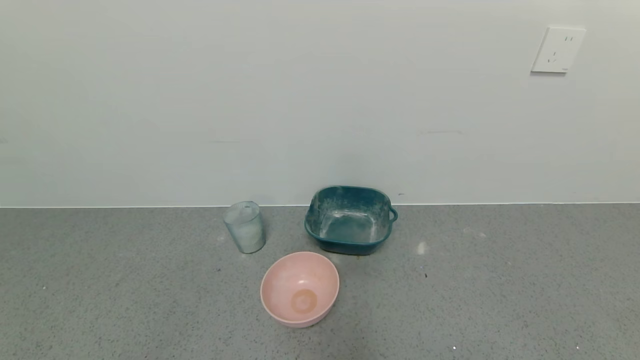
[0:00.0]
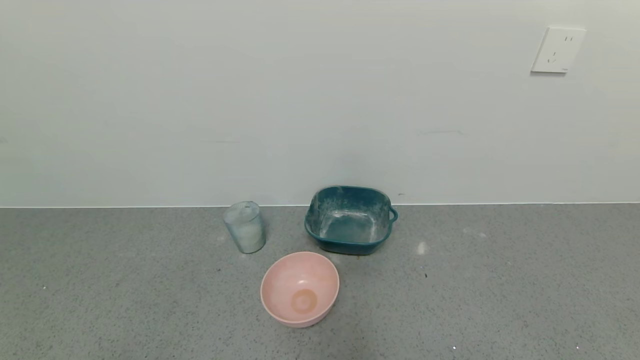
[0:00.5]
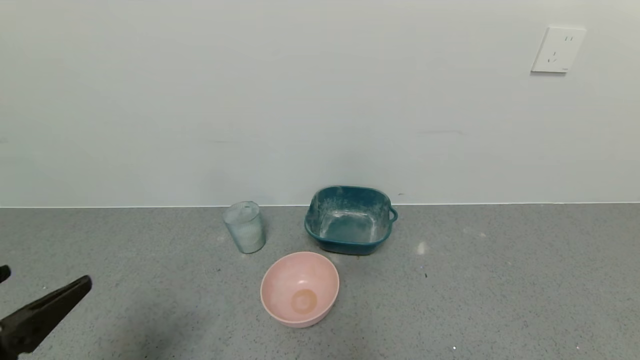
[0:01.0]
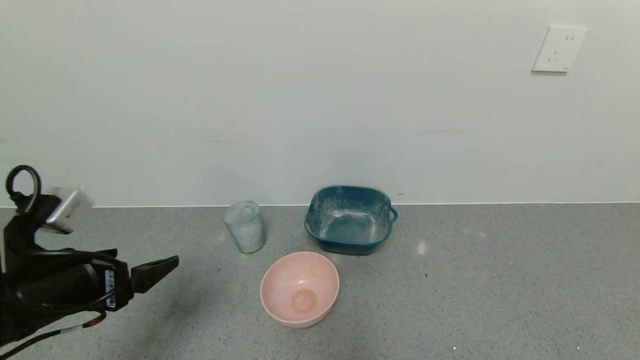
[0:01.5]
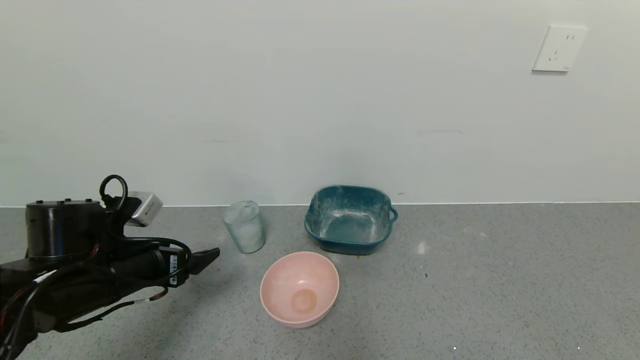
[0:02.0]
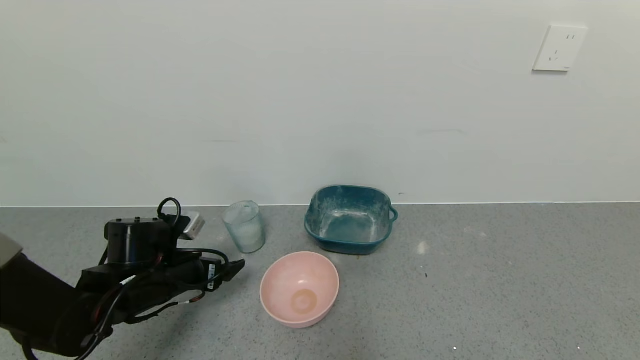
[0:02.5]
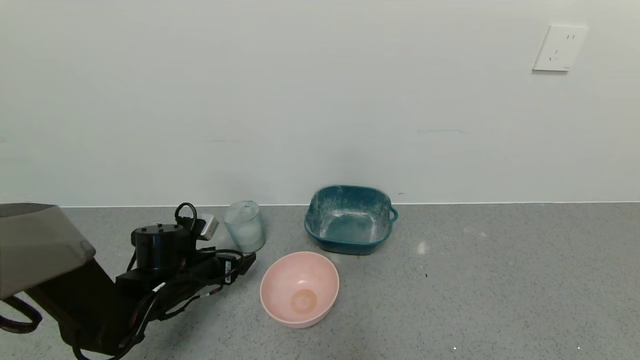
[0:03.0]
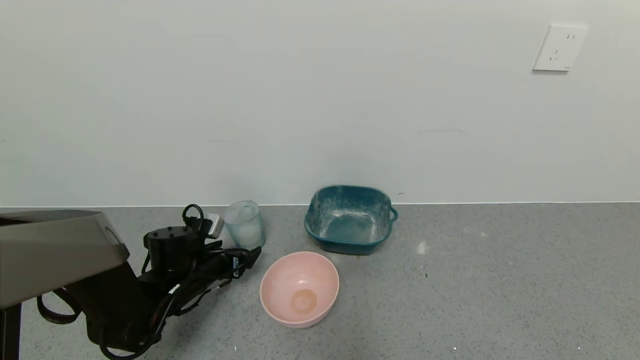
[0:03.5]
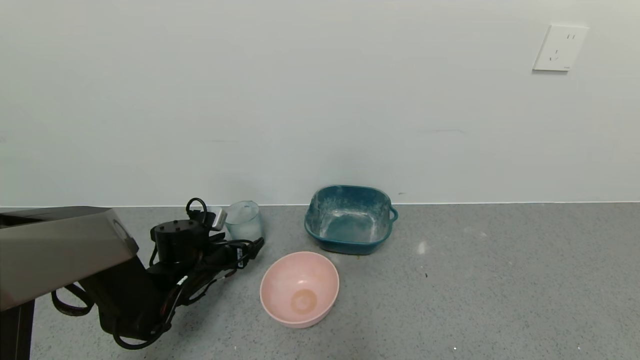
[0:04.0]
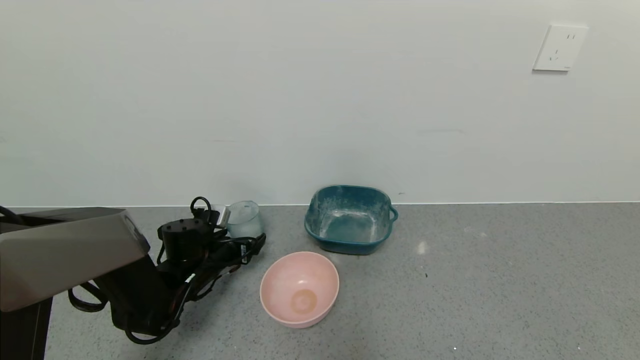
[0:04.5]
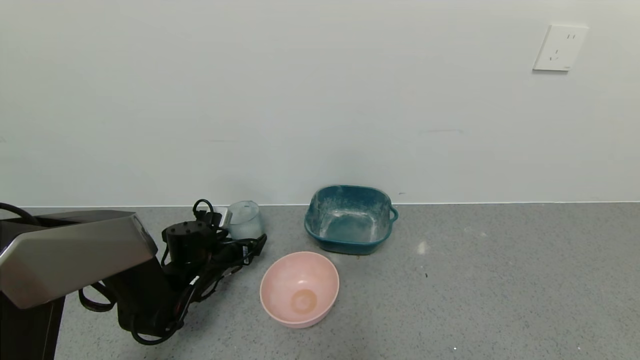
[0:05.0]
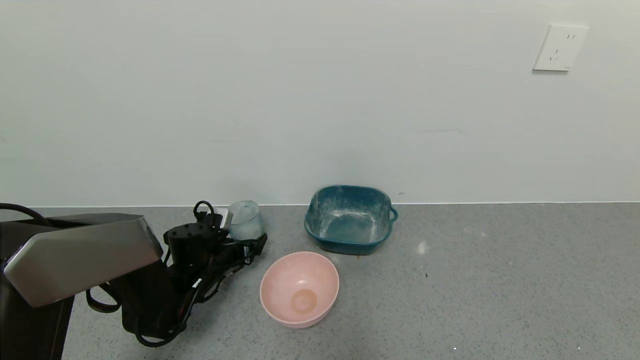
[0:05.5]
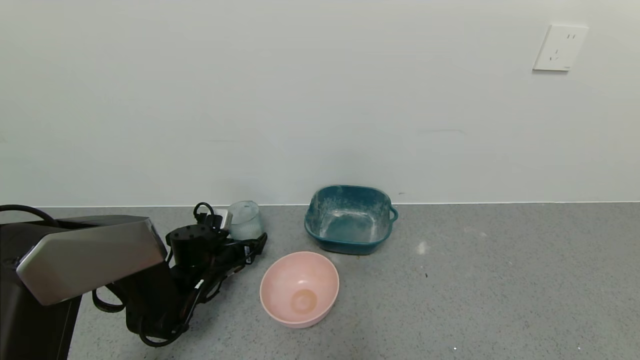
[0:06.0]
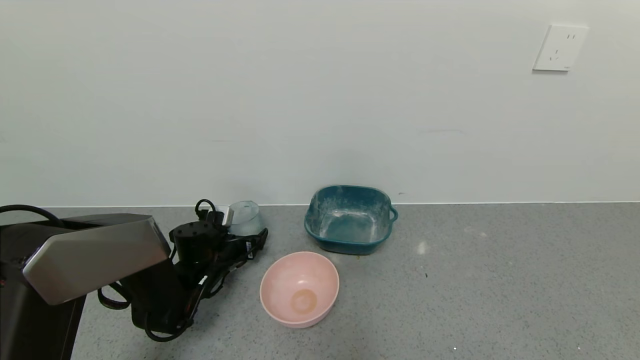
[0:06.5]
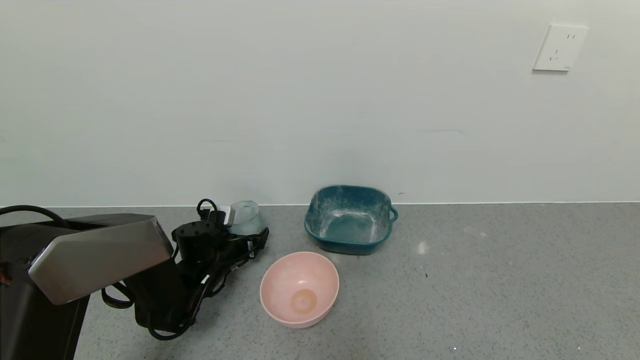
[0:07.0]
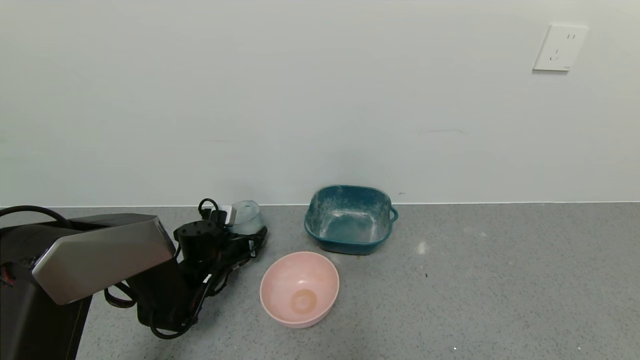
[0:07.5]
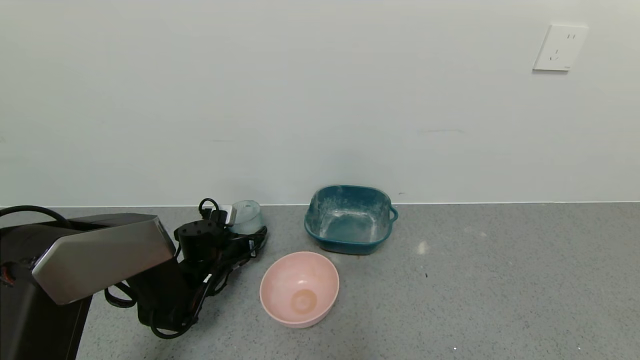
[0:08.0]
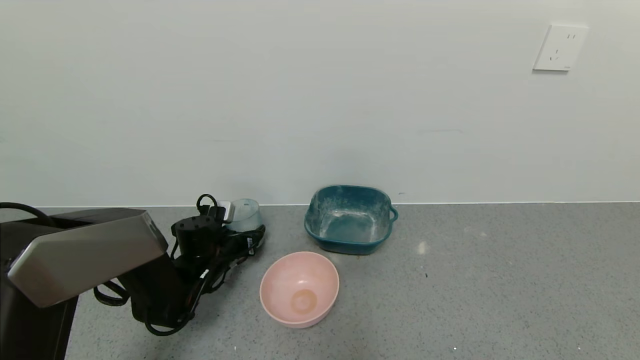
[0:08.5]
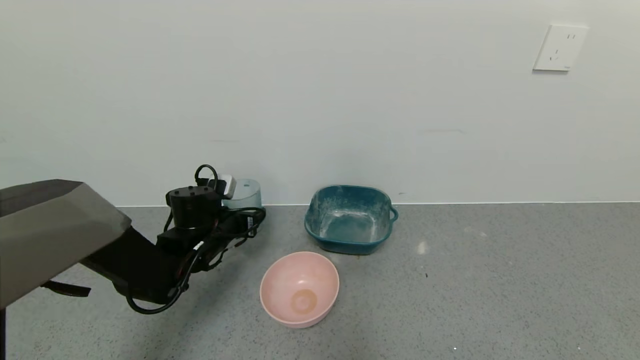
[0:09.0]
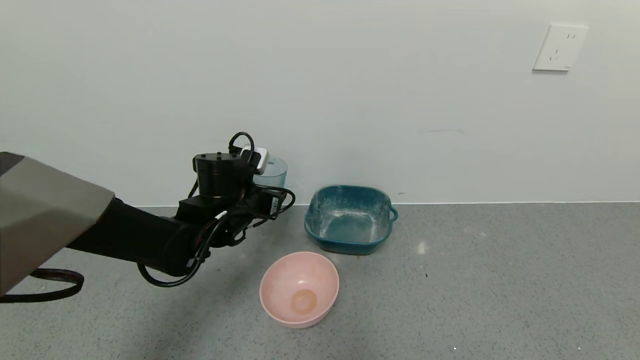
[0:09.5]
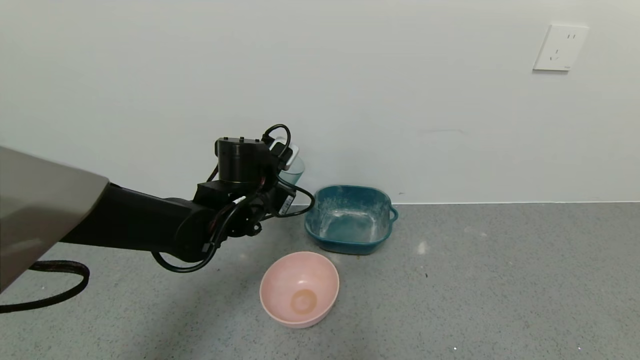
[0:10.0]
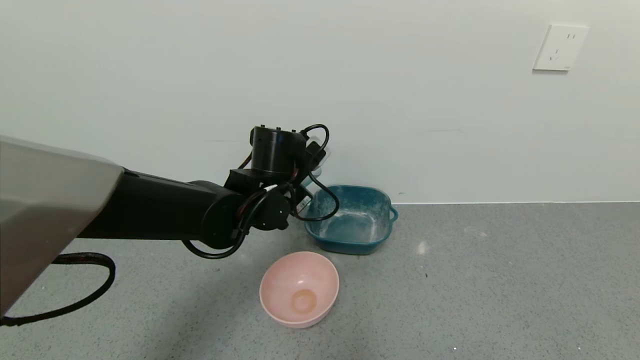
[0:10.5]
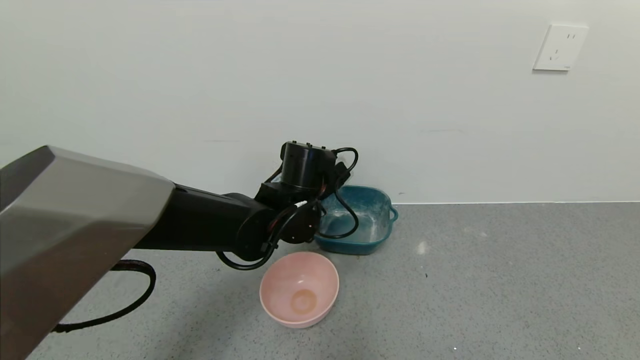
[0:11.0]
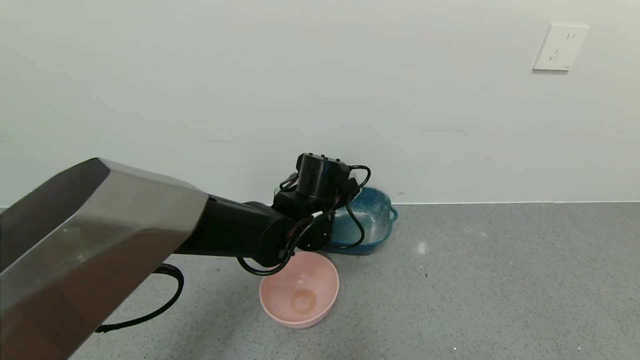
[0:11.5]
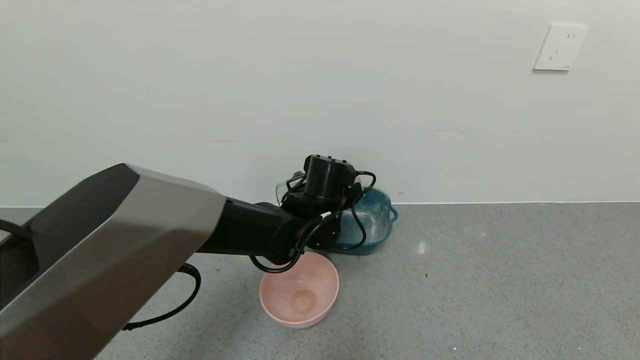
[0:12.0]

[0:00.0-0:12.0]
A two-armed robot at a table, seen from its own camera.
Task of the whole recording: use a gripper to pick up the cup and pour the powder into a bowl or tray.
Step, 0:00.0 to 0:07.5: Grasp the glass of powder with the left gripper.
0:00.0 to 0:02.0: The left gripper shifts roughly 25 cm forward.
0:02.0 to 0:04.0: The left gripper shifts about 15 cm forward and downward.
0:04.0 to 0:06.0: The grippers stay close to where they were, moving slightly.
0:06.0 to 0:08.0: The left gripper closes up.
0:08.0 to 0:10.0: The left gripper heads upward and to the right, covering approximately 20 cm.
0:10.0 to 0:12.0: The left gripper travels to the right by some 10 cm.

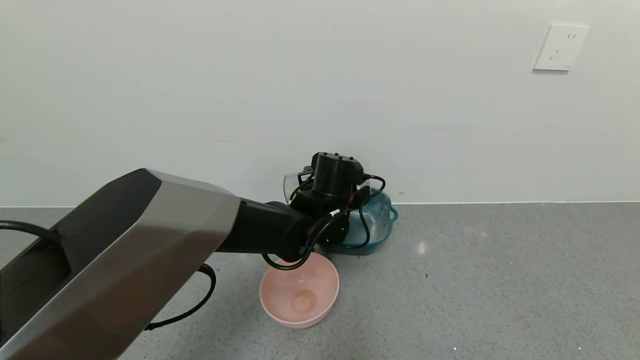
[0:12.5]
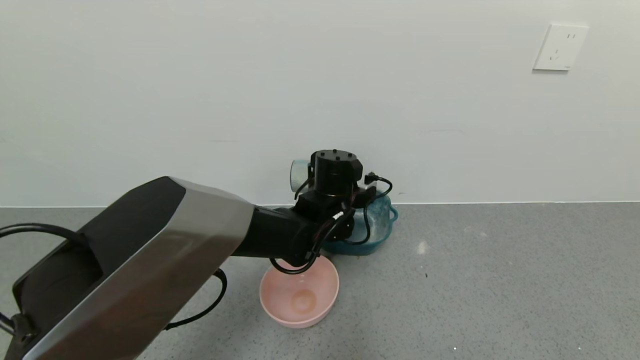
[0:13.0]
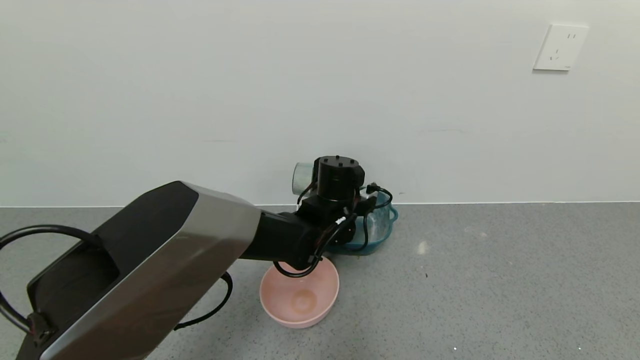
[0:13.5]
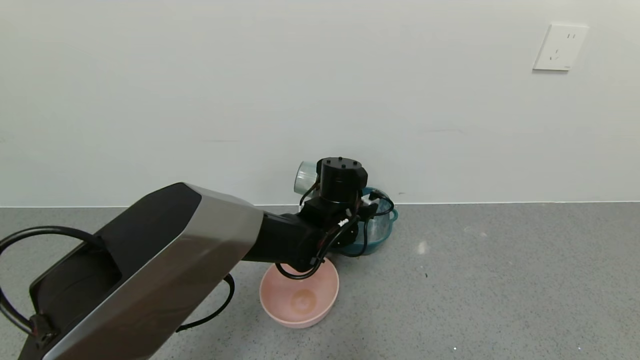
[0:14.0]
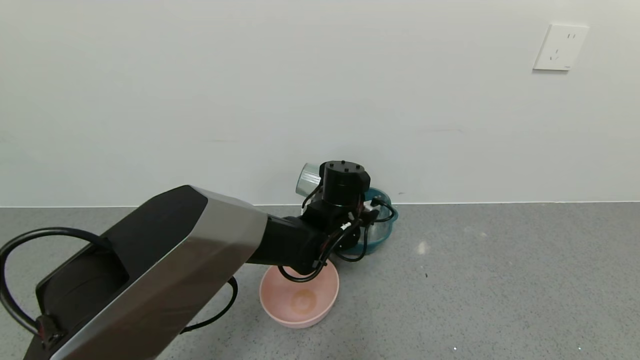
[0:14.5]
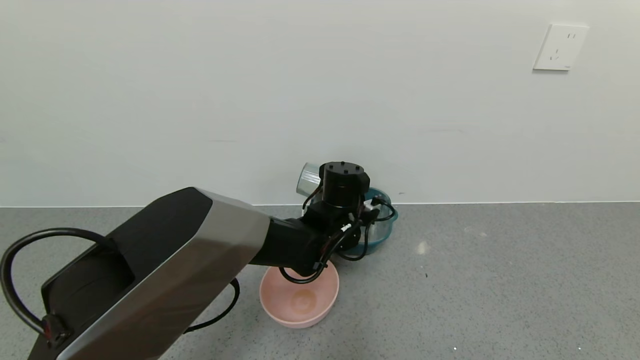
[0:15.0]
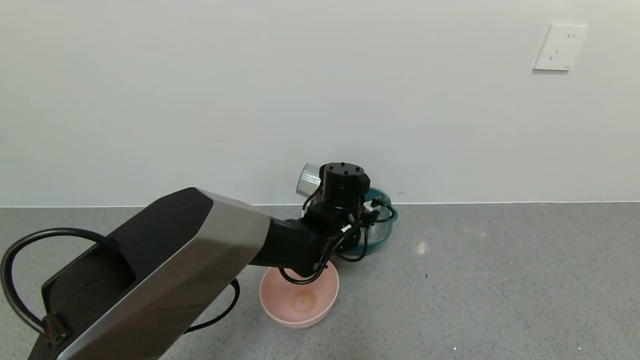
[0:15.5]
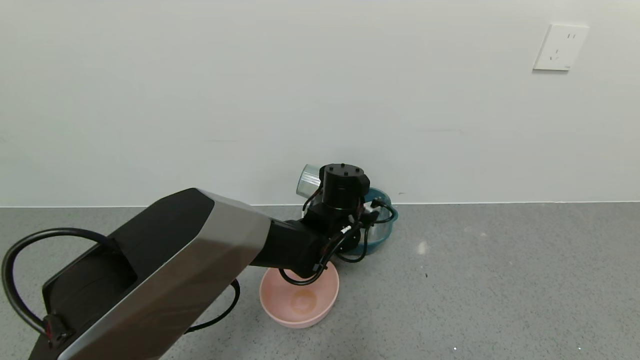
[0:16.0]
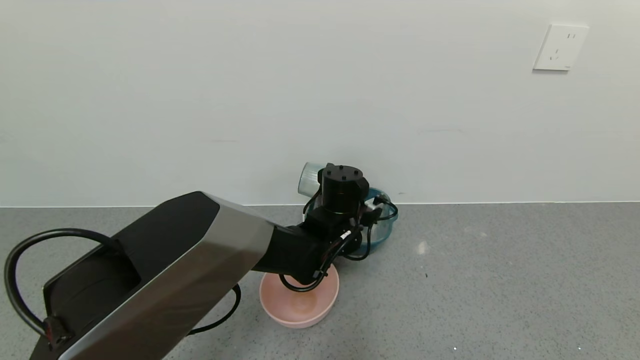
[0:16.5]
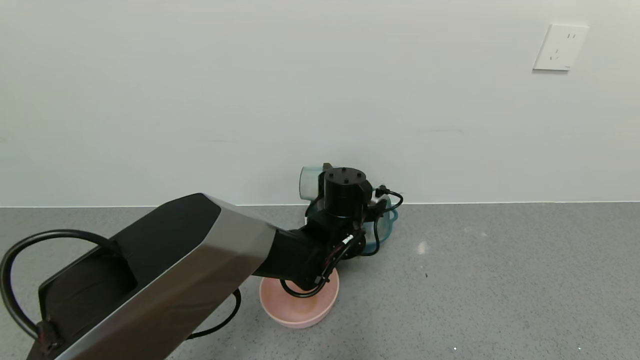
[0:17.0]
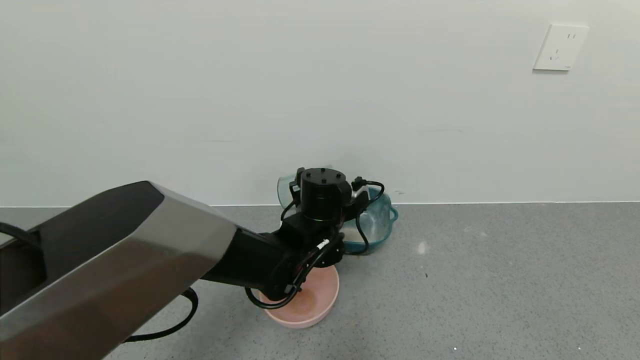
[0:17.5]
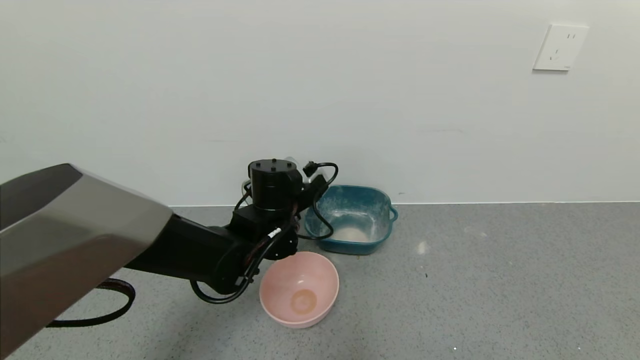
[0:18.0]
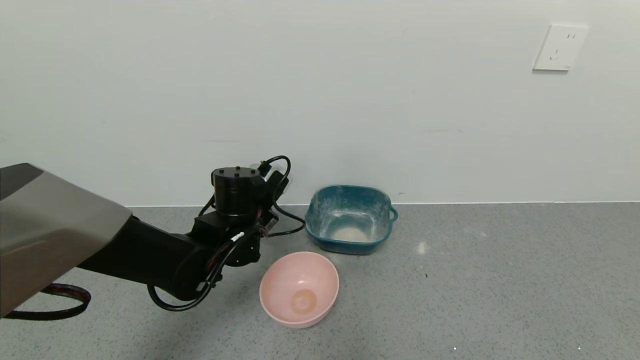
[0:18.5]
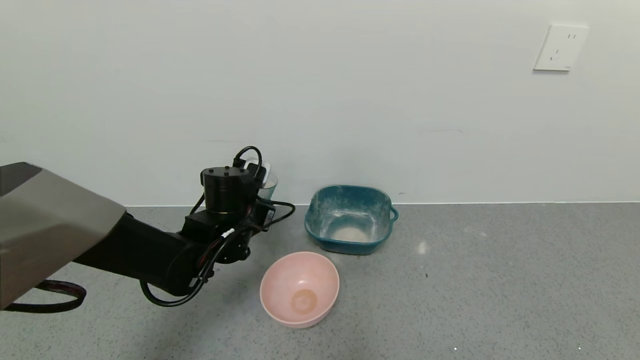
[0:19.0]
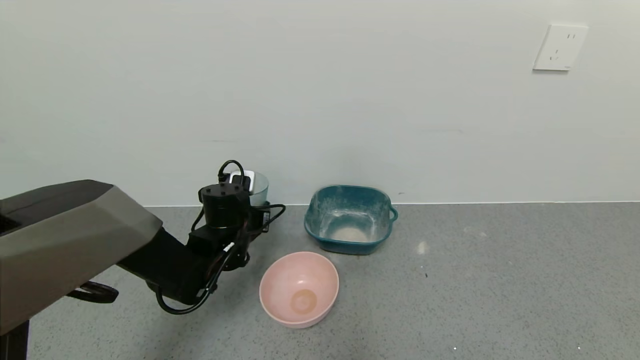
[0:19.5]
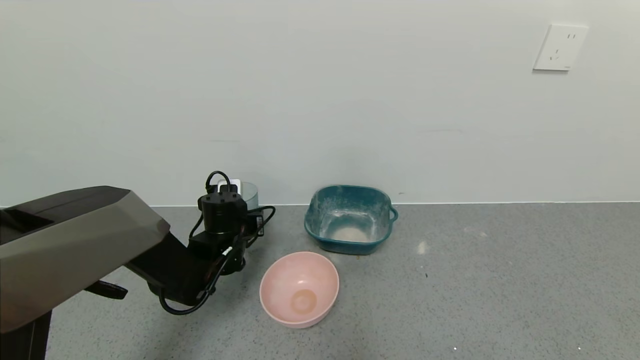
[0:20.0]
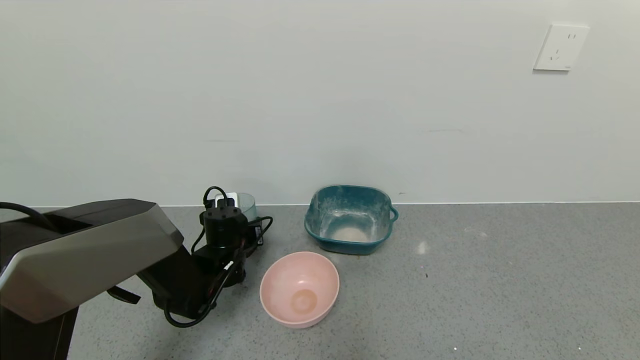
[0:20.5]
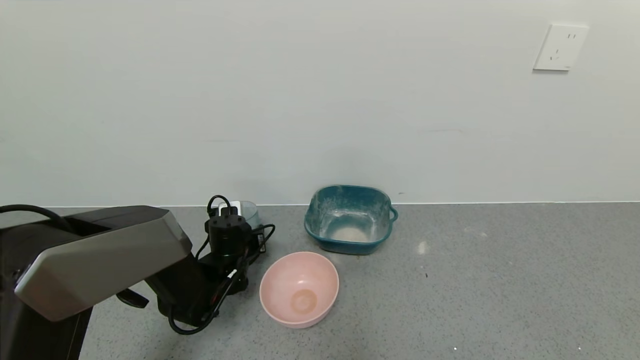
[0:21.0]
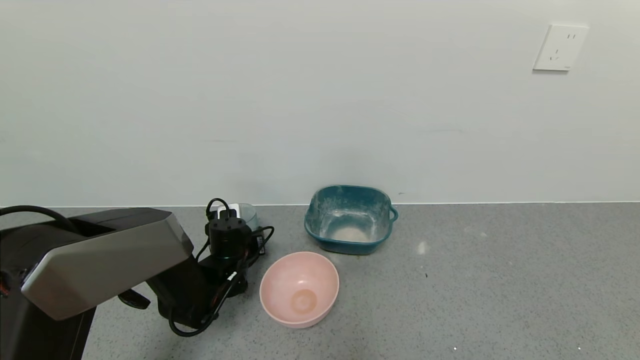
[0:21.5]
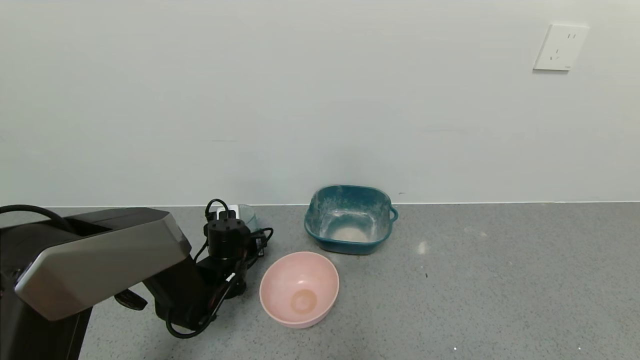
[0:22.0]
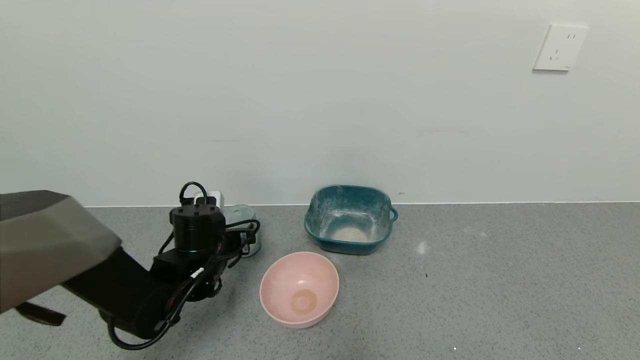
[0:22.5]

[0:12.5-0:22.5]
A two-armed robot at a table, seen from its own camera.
Task of the whole recording: use a gripper to pick up the cup and pour the powder into a bowl or tray.
Step, 0:17.5 to 0:22.0: Place the glass cup down with the left gripper.
0:14.5 to 0:16.5: The grippers move only a little.
0:16.5 to 0:18.5: The left gripper shifts roughly 15 cm to the left.
0:18.5 to 0:20.5: The left gripper goes approximately 10 cm downward.
0:20.5 to 0:22.5: The left gripper goes approximately 5 cm backward, and opens up.
